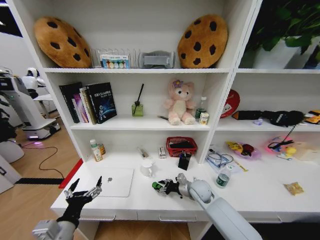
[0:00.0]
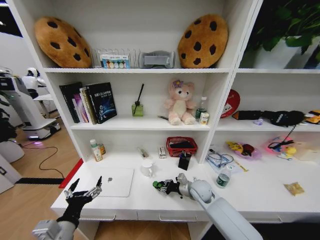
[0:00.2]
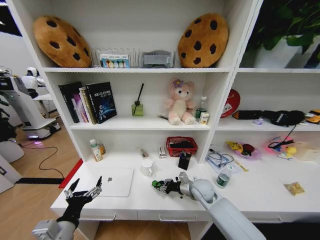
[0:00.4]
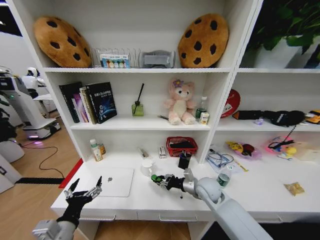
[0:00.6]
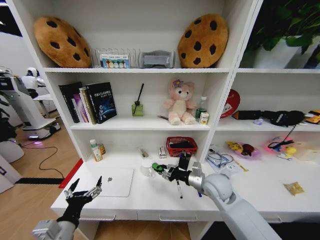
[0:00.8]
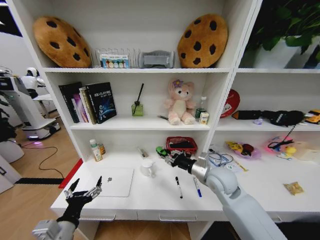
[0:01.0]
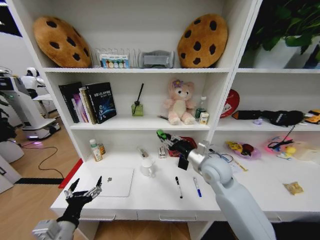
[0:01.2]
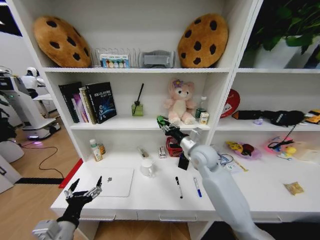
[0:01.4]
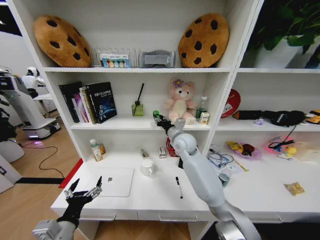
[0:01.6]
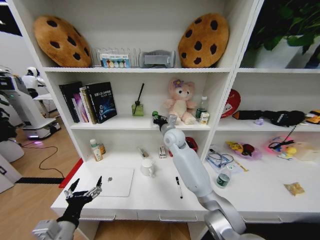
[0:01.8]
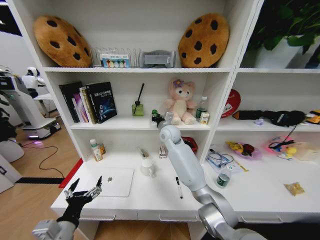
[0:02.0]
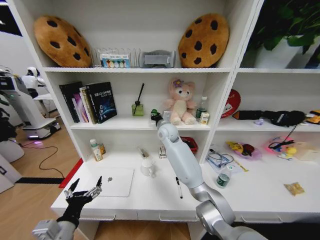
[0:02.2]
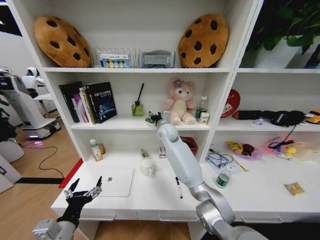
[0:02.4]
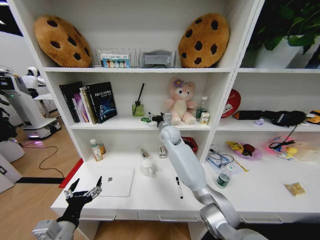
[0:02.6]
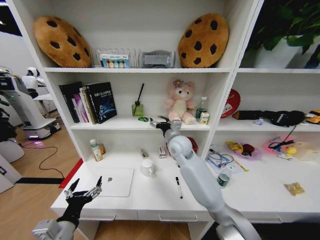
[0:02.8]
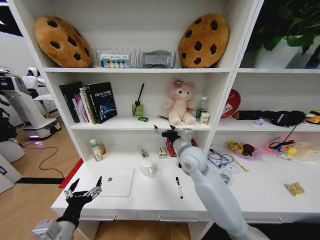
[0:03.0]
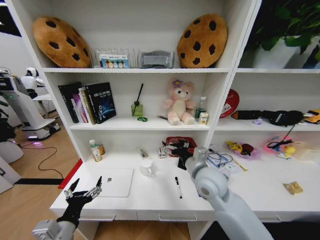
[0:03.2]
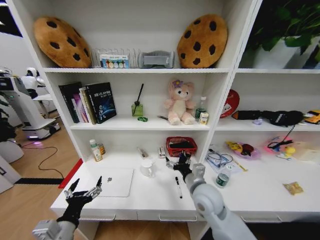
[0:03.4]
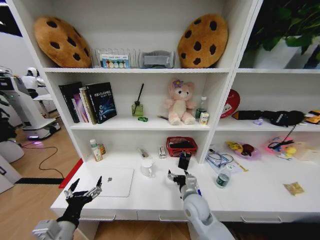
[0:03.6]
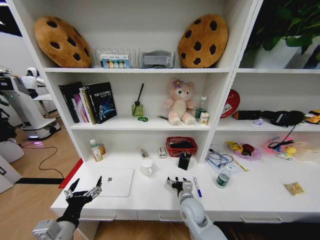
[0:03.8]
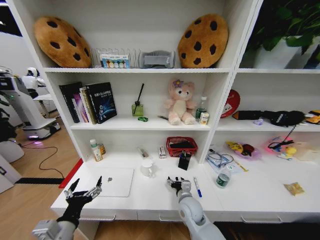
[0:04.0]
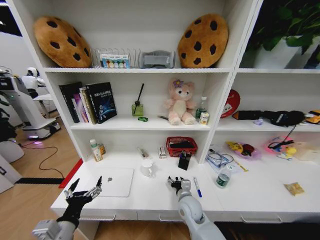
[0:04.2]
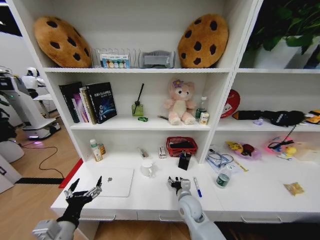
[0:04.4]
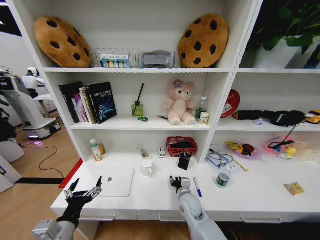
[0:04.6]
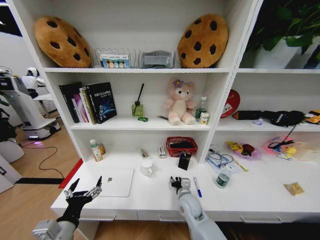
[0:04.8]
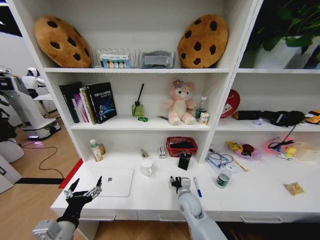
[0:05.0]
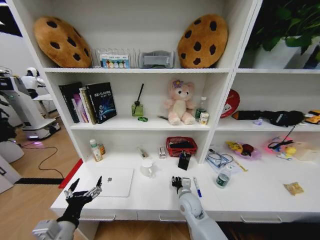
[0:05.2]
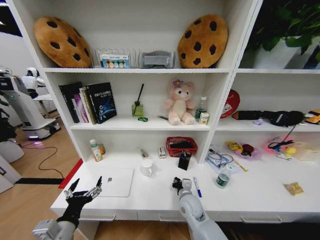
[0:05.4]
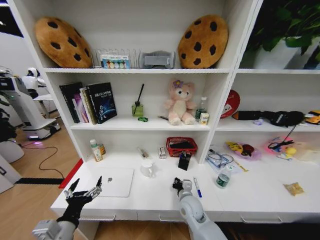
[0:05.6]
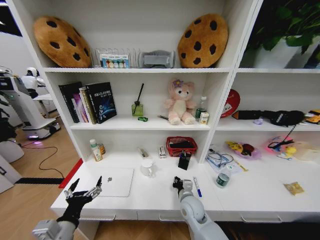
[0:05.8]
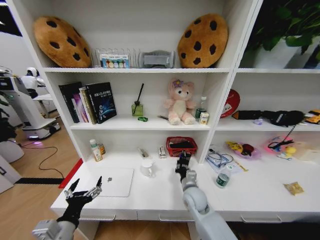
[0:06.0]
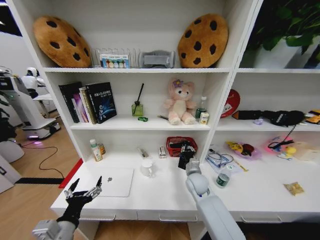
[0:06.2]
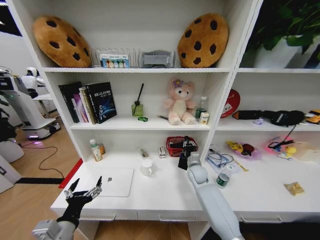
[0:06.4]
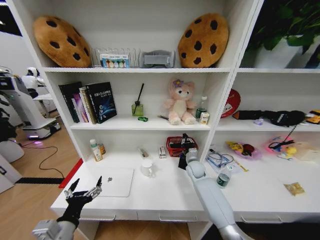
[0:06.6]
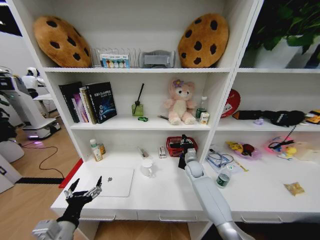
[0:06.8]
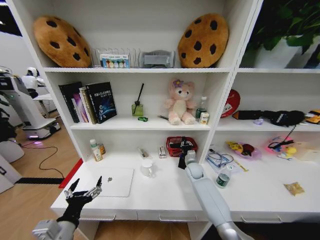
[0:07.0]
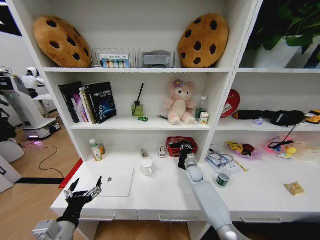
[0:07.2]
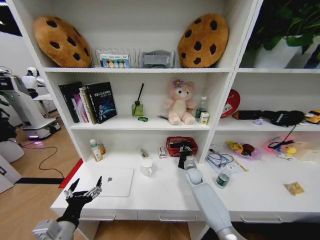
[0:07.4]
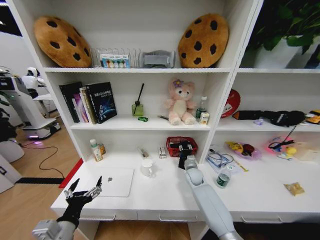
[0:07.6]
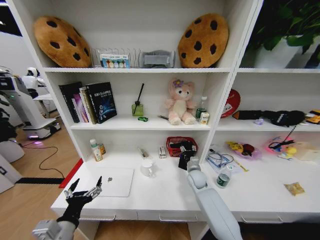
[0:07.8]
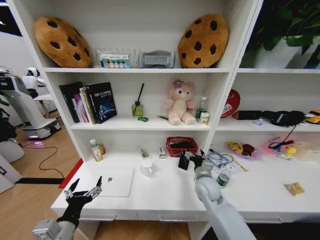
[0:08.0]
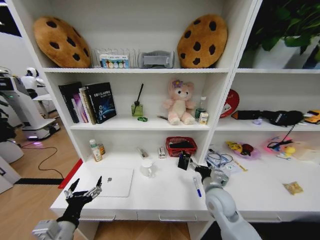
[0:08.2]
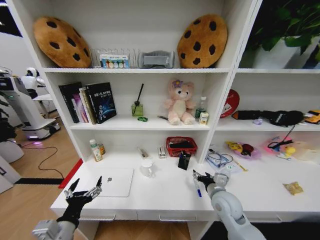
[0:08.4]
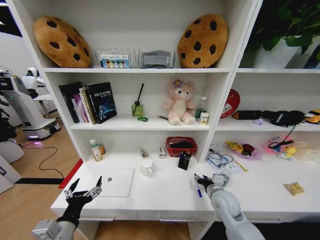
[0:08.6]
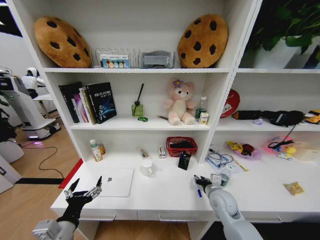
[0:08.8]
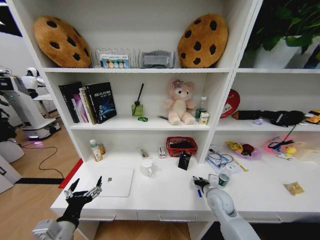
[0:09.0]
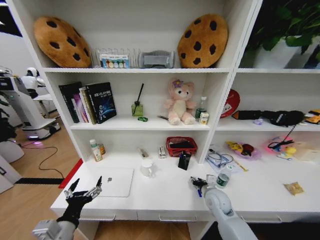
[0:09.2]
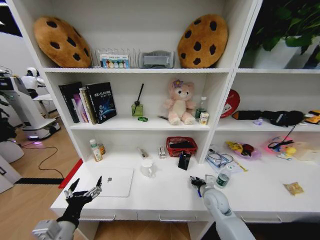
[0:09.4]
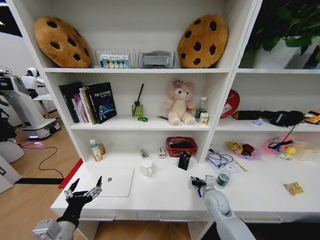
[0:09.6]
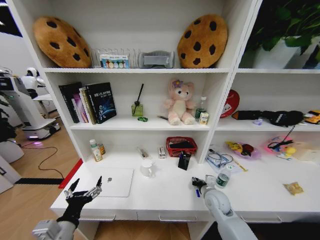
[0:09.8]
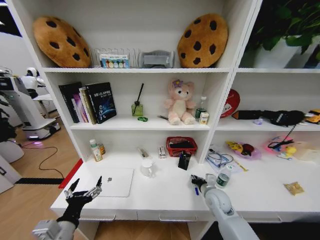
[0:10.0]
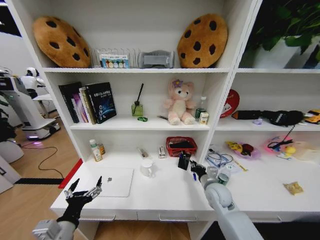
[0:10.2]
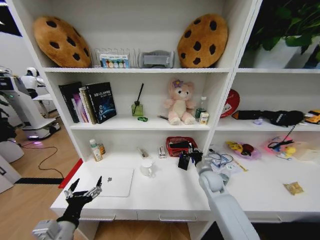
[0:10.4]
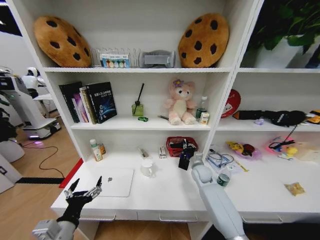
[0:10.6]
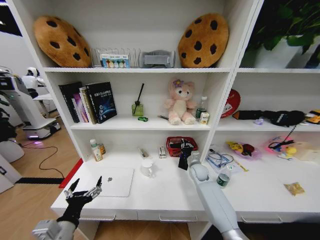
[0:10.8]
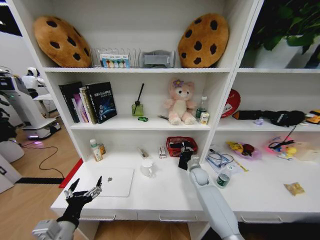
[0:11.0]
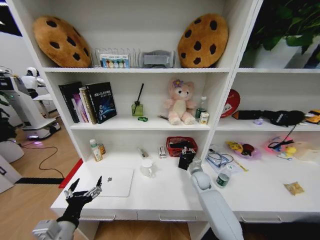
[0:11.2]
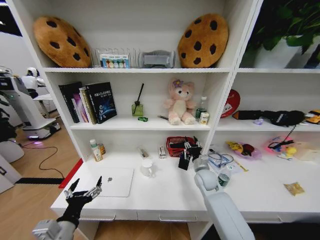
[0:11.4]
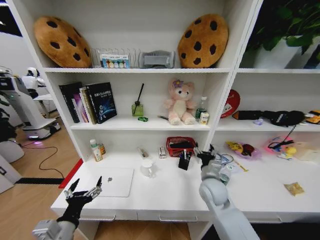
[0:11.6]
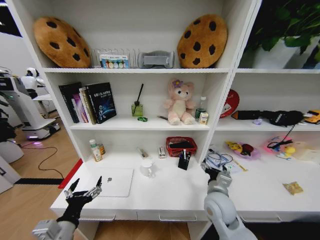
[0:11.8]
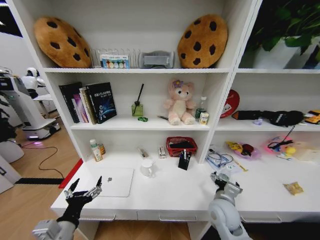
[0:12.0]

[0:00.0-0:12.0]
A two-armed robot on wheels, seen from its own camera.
Task of the whole recording: Organize the objects on the table.
0:00.0 to 0:01.6: The right gripper moves upward, forward and to the left, roughly 25 cm.
0:01.6 to 0:03.0: The right gripper heads backward, covering about 10 cm, and opens up.
0:03.0 to 0:04.4: The right gripper is displaced downward by approximately 25 cm.
0:04.4 to 0:06.0: The right gripper closes its fingers.
0:06.0 to 0:07.6: The right gripper is displaced forward and to the right by about 15 cm.
0:07.6 to 0:09.0: The right gripper heads backward, covering some 15 cm, and opens and closes again.
0:09.0 to 0:10.4: The right gripper travels forward by about 5 cm.
0:10.4 to 0:12.0: The right gripper moves backward, about 10 cm, and opens up.

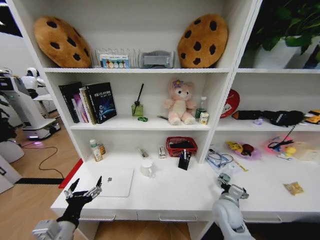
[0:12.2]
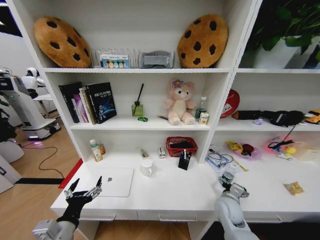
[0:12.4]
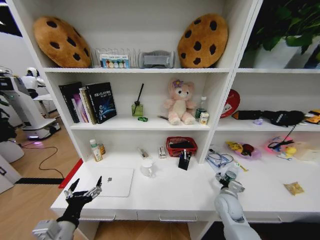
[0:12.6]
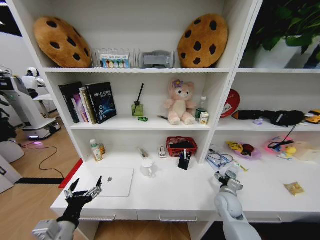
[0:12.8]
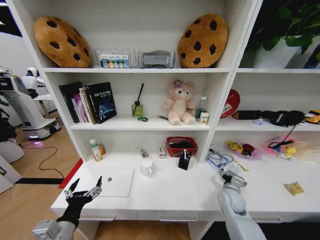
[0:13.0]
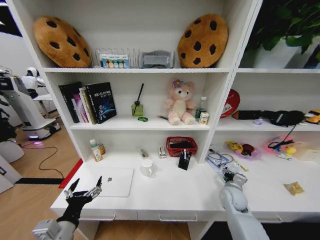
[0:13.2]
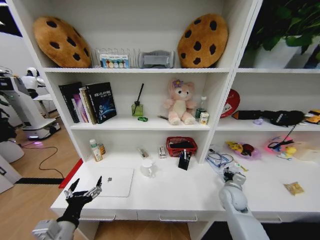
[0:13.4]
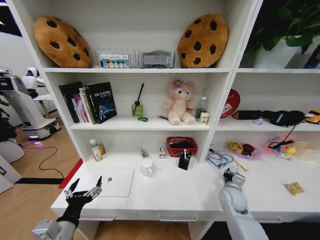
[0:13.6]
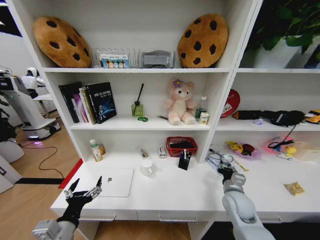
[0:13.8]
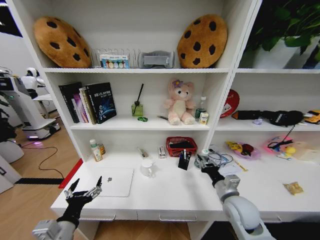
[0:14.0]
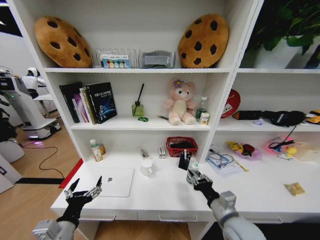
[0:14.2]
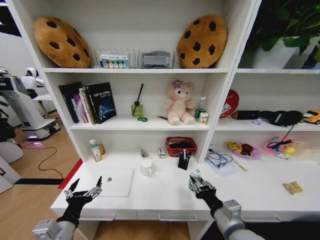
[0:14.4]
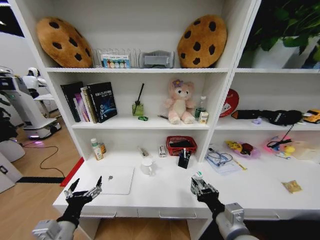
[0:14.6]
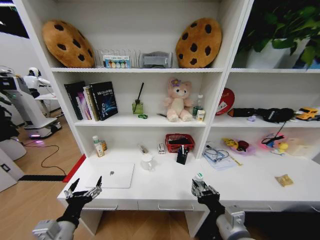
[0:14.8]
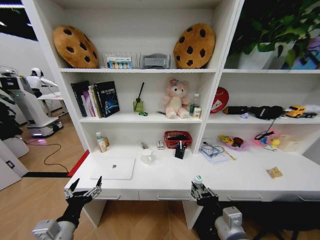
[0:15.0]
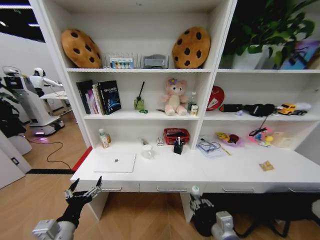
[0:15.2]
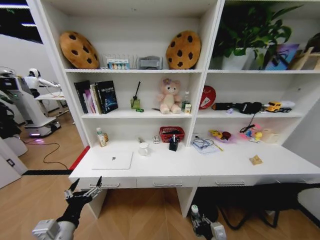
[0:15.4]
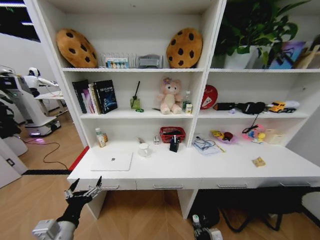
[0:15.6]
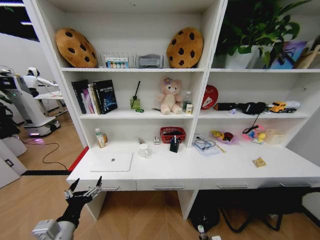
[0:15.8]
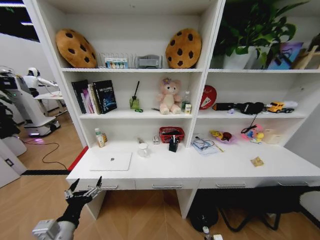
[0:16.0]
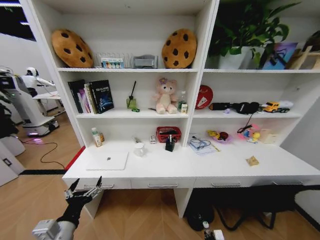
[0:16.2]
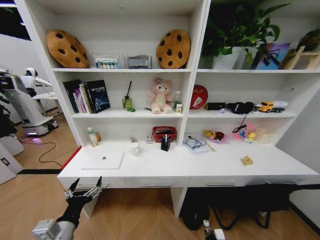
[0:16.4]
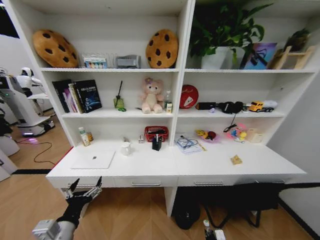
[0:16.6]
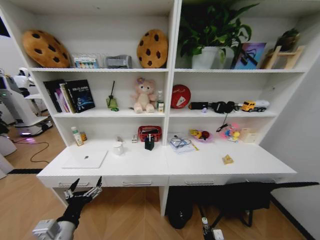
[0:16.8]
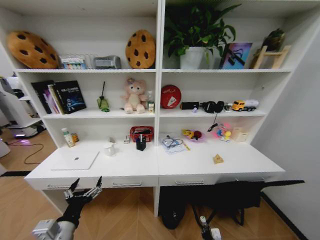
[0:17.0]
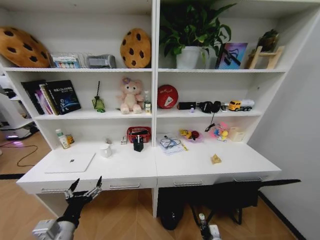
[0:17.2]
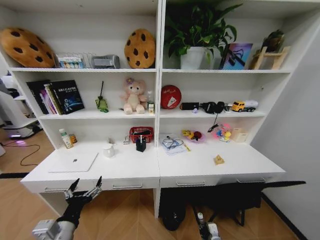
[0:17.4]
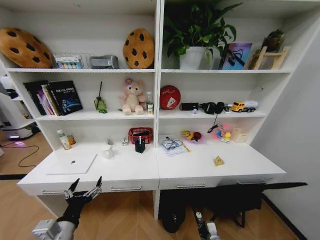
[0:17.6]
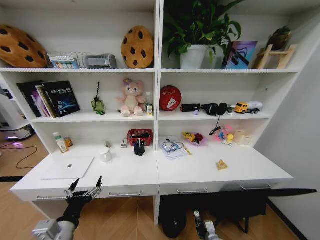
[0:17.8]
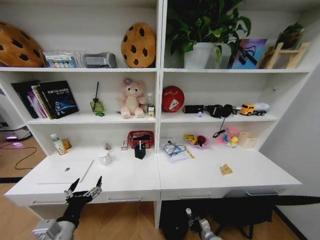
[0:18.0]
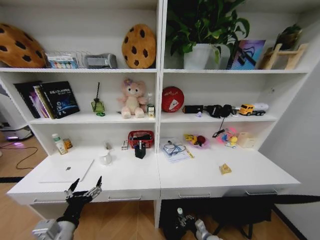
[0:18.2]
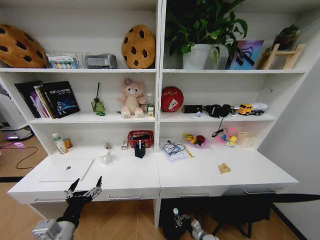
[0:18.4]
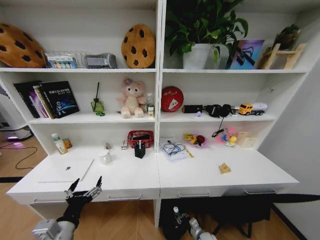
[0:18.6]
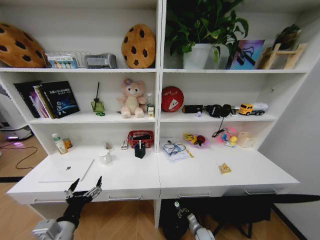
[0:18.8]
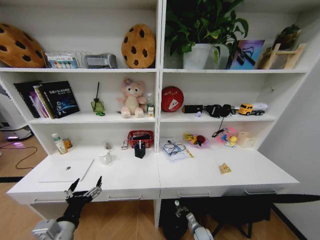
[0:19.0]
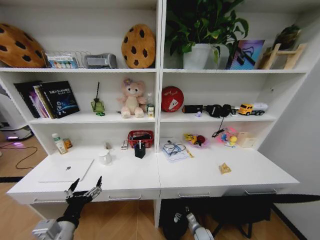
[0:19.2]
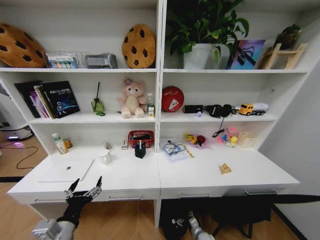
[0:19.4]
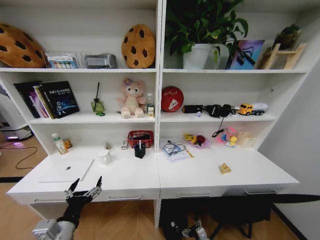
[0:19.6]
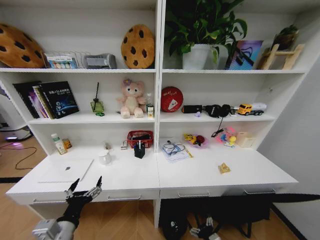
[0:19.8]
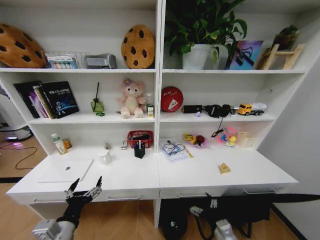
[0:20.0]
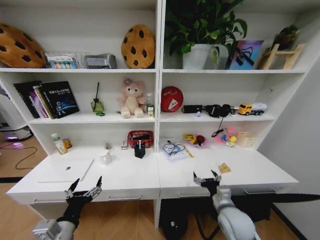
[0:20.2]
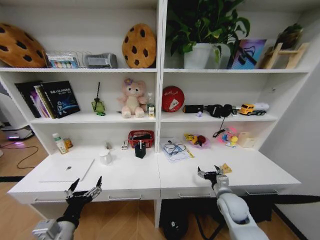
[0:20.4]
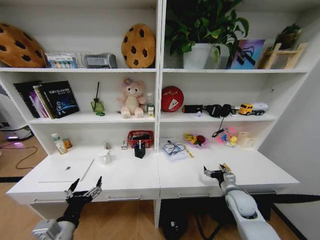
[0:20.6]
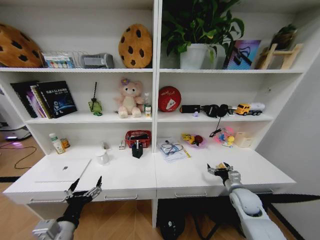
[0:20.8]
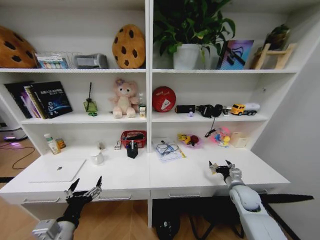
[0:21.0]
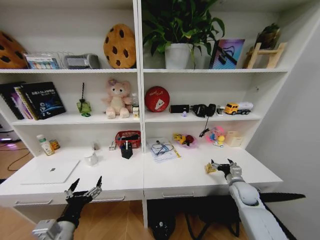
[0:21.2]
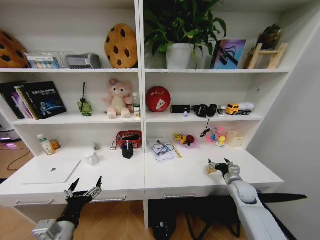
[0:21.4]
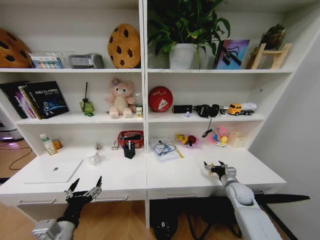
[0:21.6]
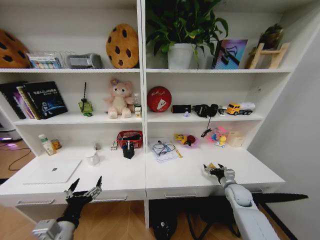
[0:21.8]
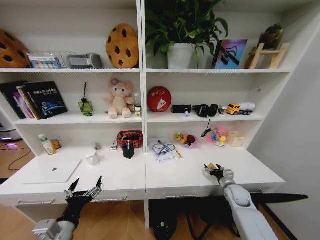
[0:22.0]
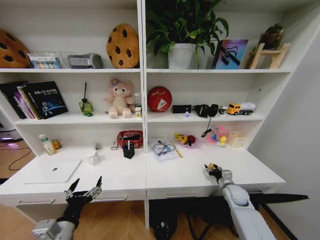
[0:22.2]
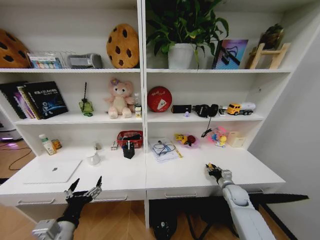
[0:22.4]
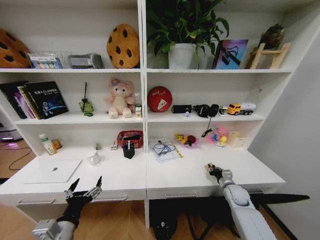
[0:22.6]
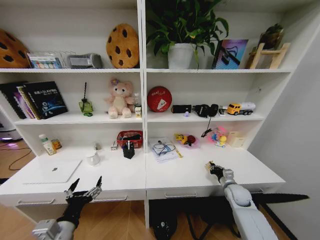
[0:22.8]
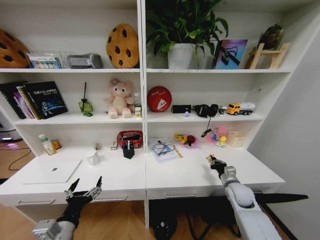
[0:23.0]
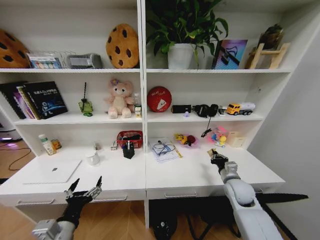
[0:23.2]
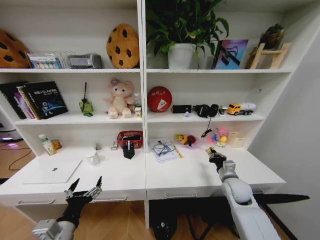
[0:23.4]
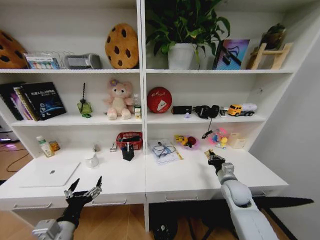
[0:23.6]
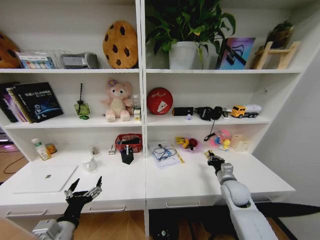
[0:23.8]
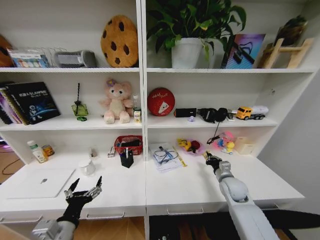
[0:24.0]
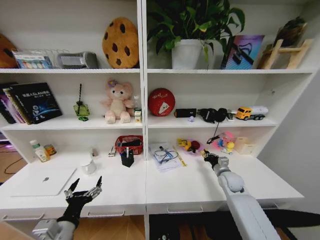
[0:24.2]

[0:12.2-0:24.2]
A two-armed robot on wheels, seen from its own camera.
Task of the whole recording: Organize the objects on the table.
0:12.2 to 0:13.8: The right gripper heads to the right, covering roughly 5 cm, and closes its fingers.
0:13.8 to 0:15.2: The right gripper goes about 15 cm backward and to the left.
0:15.2 to 0:16.6: The right gripper goes about 25 cm downward.
0:16.6 to 0:18.2: The right gripper moves approximately 5 cm.
0:18.2 to 0:19.8: The right gripper is displaced upward and backward by some 10 cm, and opens up.
0:19.8 to 0:21.2: The right gripper moves forward, upward and to the right, approximately 30 cm.
0:21.2 to 0:22.6: The right gripper shifts by approximately 5 cm, and closes its fingers.
0:22.6 to 0:24.2: The right gripper moves upward, approximately 5 cm.
